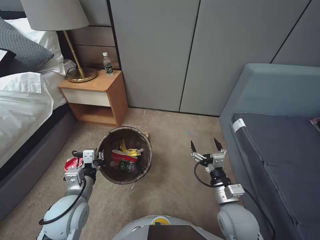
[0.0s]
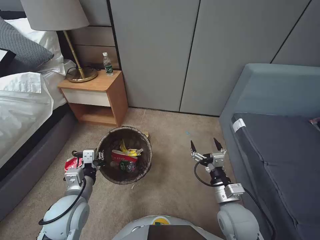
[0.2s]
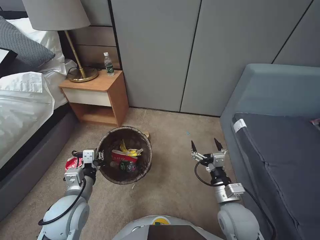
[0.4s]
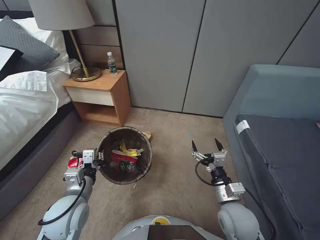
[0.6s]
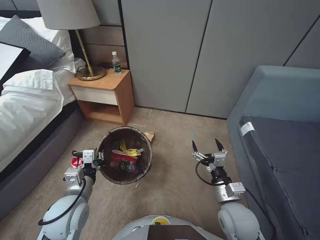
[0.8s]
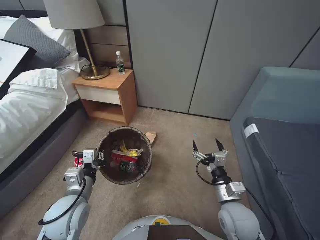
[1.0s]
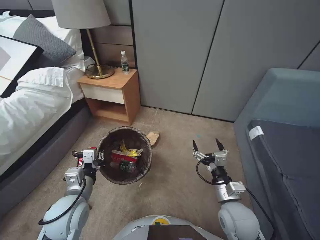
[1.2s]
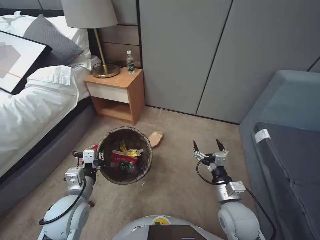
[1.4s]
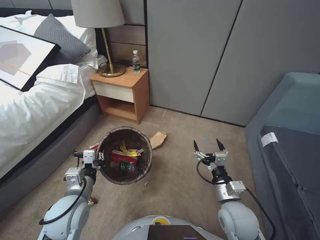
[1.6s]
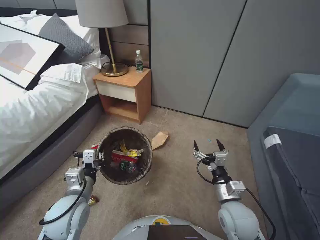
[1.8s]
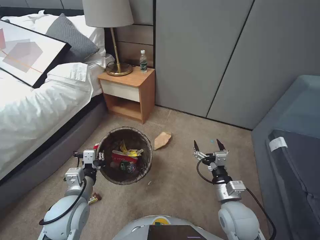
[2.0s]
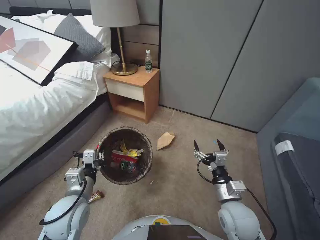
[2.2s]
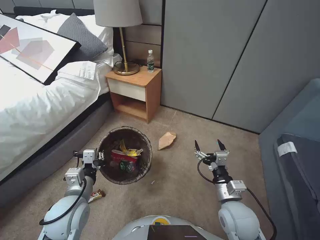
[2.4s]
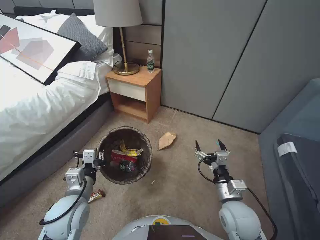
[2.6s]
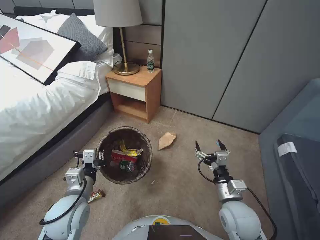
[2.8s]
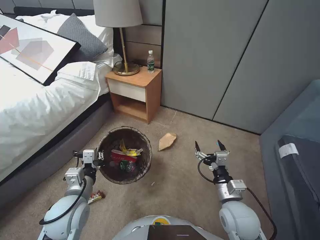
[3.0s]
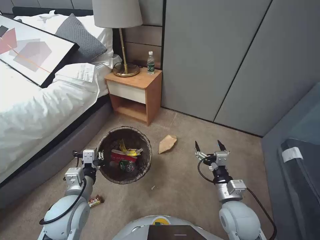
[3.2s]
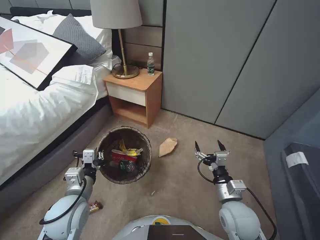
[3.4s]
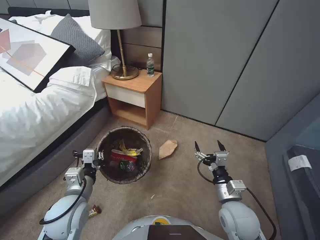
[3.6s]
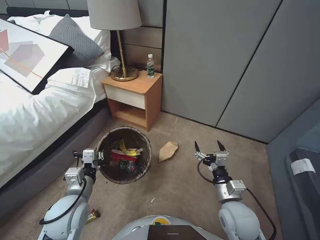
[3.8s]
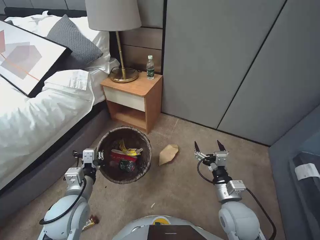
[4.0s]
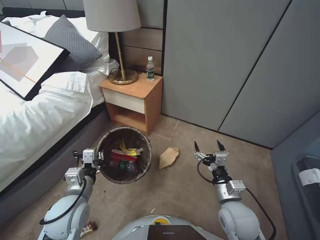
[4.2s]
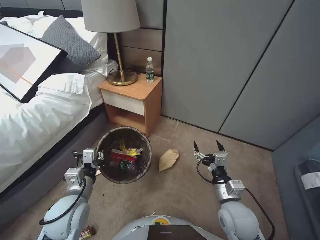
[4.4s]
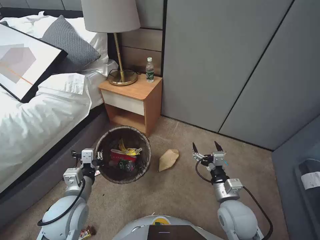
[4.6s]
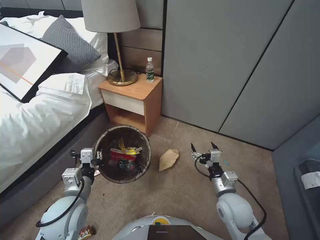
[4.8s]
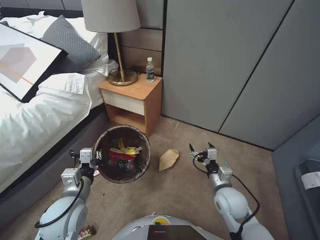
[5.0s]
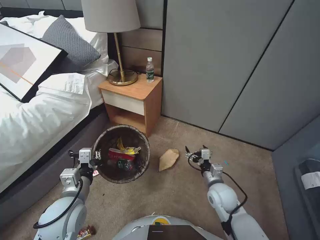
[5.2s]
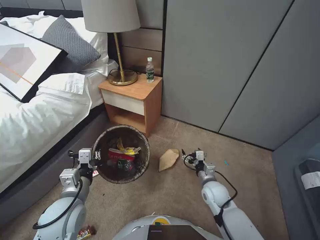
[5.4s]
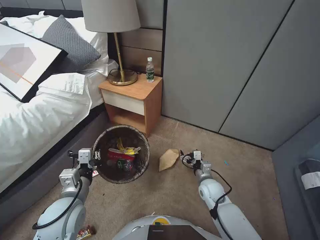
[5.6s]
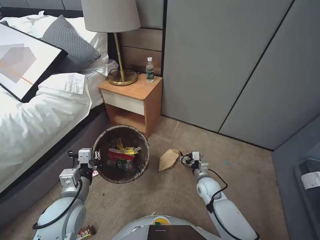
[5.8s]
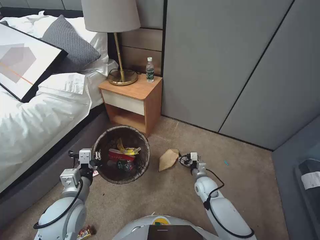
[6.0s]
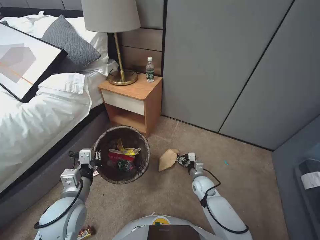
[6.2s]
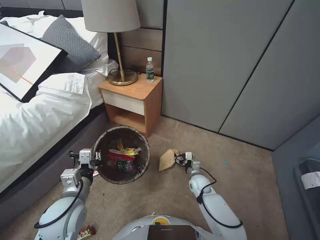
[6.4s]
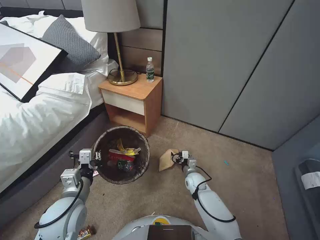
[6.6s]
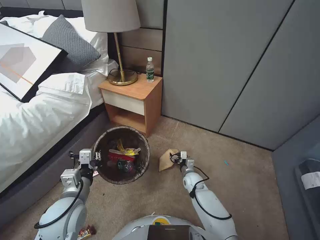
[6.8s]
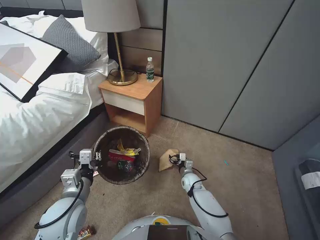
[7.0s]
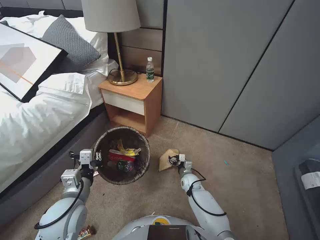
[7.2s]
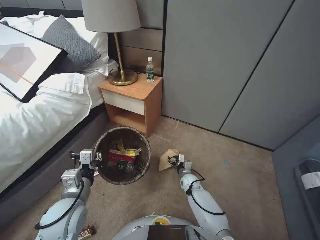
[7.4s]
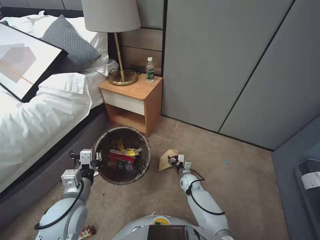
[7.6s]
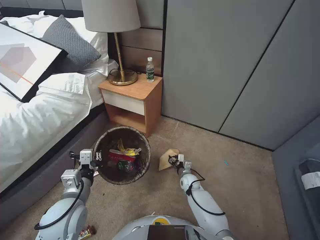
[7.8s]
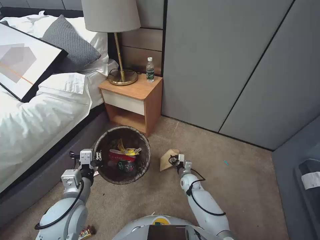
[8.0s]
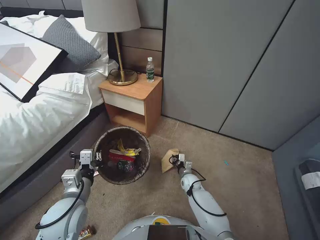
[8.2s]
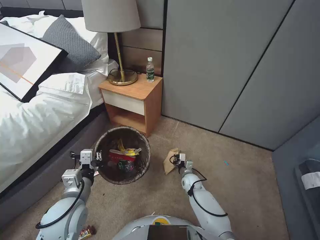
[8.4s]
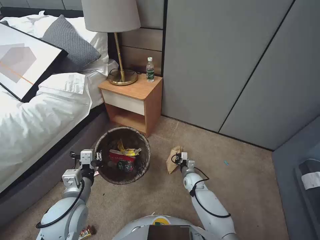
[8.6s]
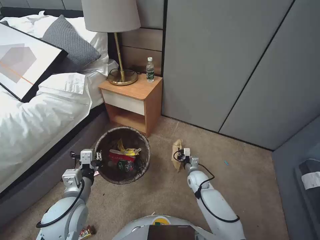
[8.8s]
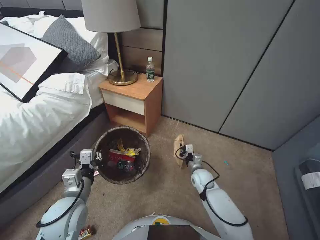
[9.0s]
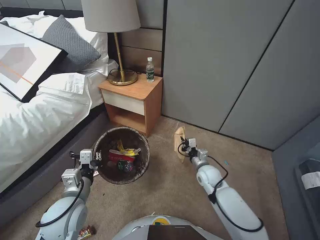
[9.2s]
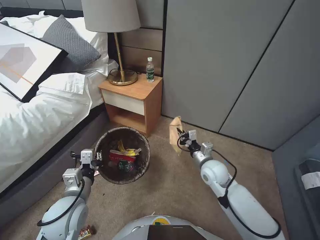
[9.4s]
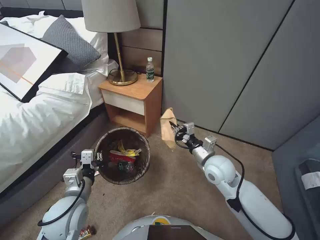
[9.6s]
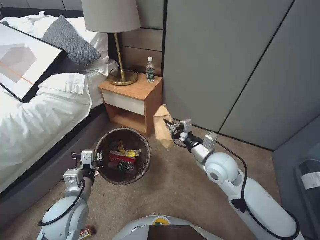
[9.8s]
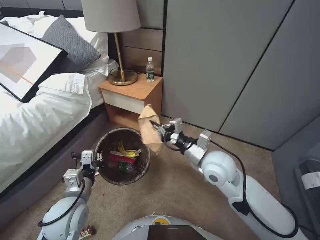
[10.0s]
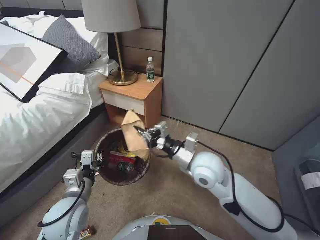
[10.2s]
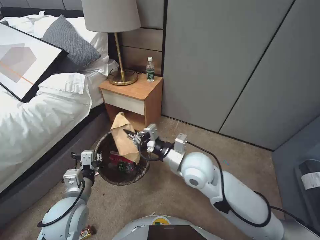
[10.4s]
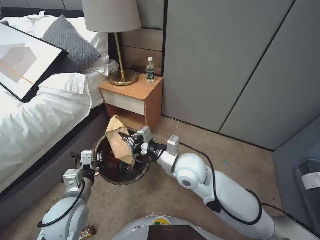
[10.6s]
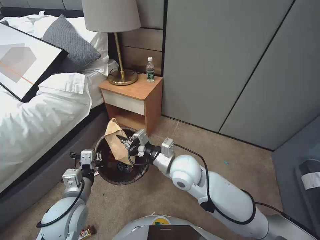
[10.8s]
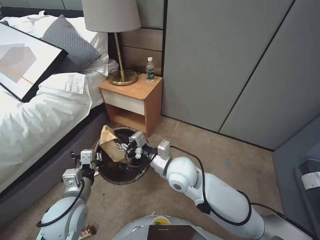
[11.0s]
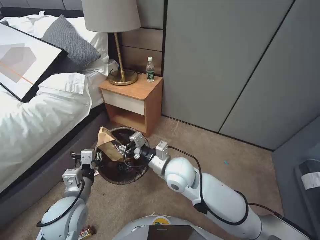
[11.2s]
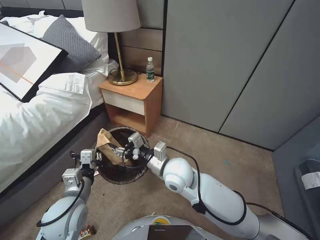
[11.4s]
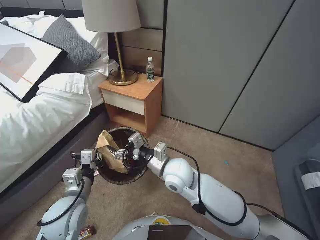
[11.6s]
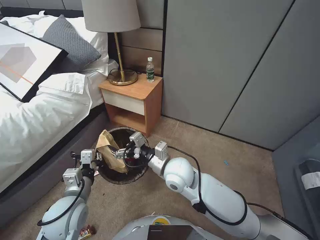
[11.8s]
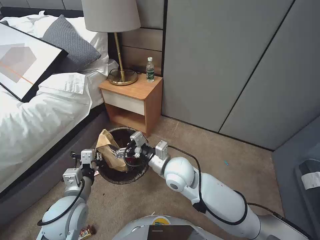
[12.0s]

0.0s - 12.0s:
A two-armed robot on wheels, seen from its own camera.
Task of the whole recording: Pick up the trash bin, then pick up the garbage from the floor and place it into the trash bin.
4.4s - 6.0s: The right gripper travels downward and forward by about 20 cm.
6.0s - 7.6s: The right gripper goes roughly 10 cm downward and to the left.
7.6s - 9.0s: The right gripper travels upward by about 10 cm, and closes up.
9.0s - 10.4s: The right gripper travels upward by about 30 cm.
10.4s - 12.0s: The right gripper moves to the left, about 5 cm, and opens its fingers.

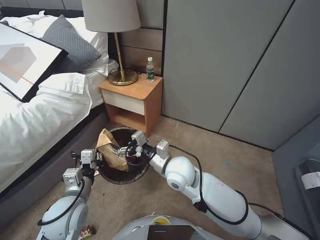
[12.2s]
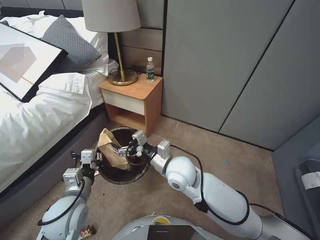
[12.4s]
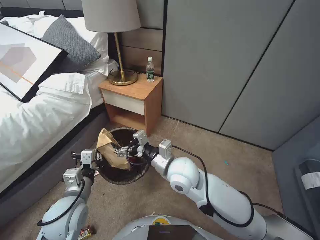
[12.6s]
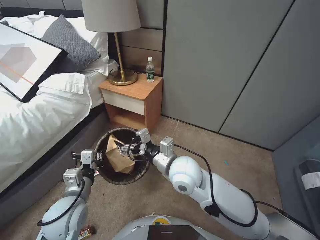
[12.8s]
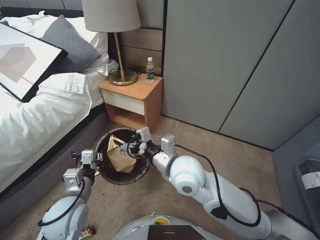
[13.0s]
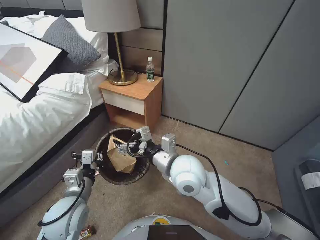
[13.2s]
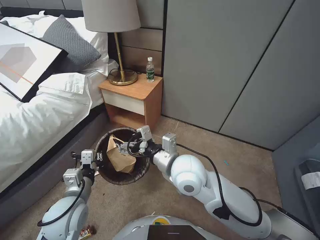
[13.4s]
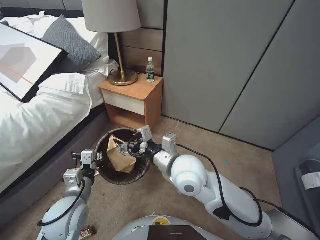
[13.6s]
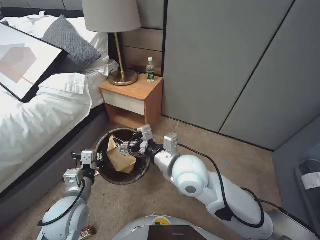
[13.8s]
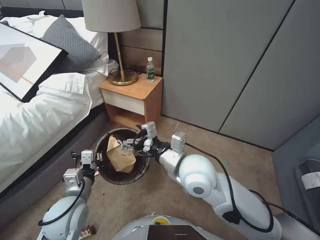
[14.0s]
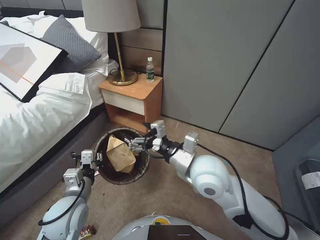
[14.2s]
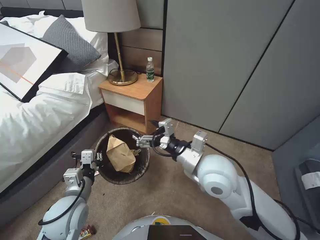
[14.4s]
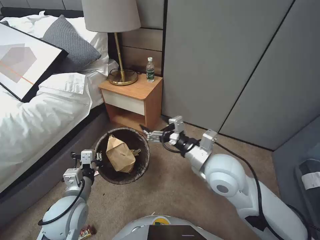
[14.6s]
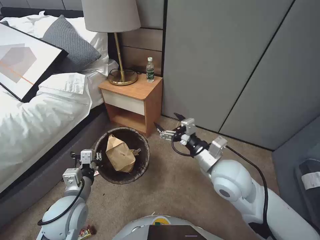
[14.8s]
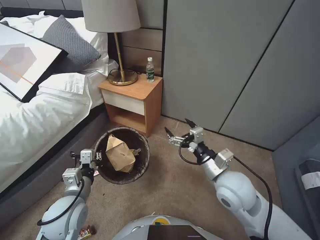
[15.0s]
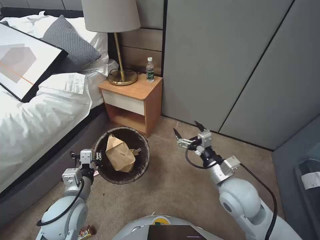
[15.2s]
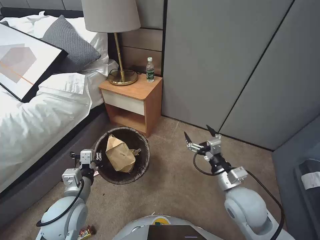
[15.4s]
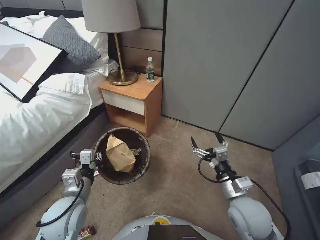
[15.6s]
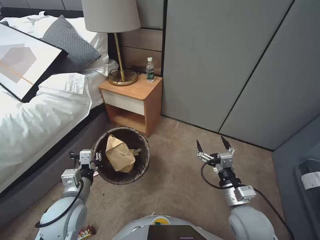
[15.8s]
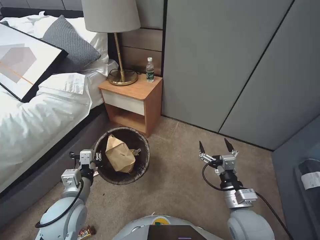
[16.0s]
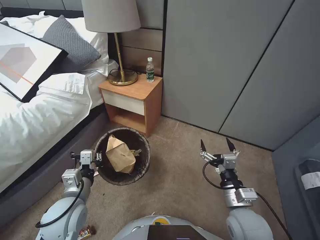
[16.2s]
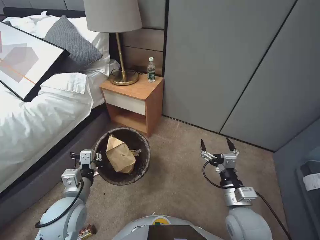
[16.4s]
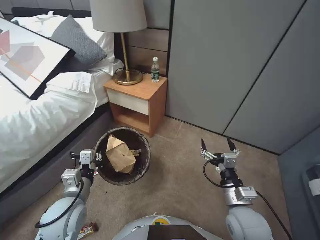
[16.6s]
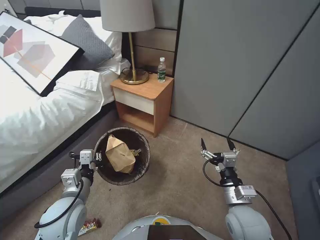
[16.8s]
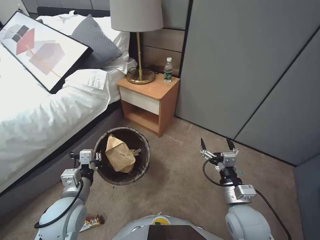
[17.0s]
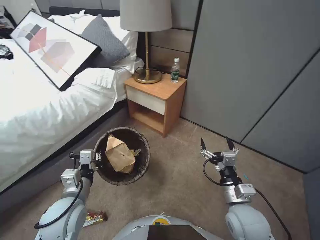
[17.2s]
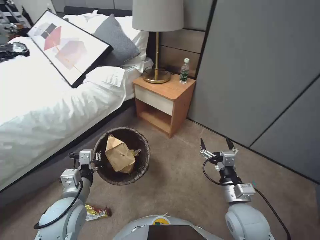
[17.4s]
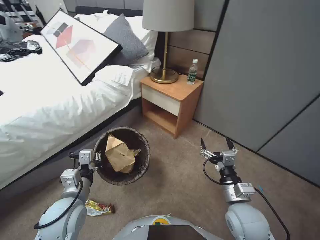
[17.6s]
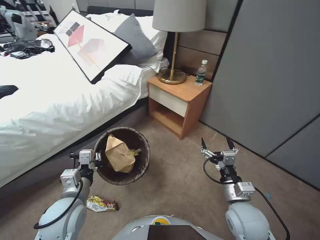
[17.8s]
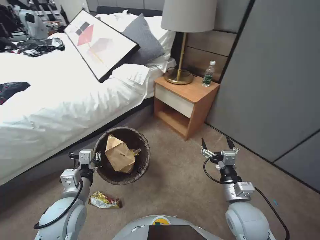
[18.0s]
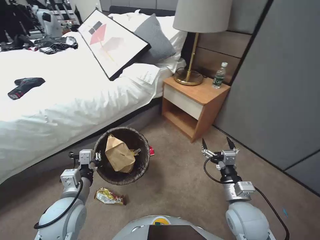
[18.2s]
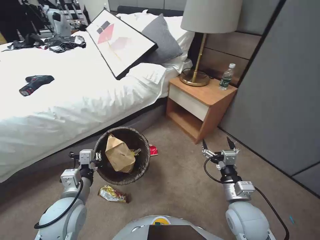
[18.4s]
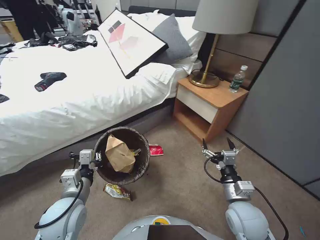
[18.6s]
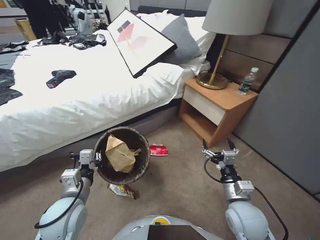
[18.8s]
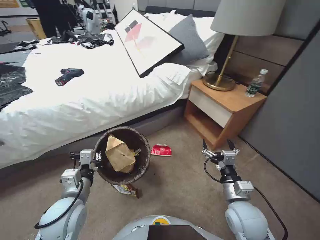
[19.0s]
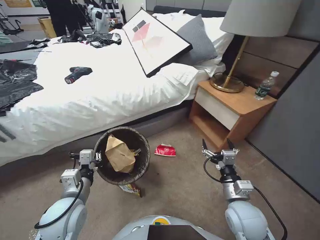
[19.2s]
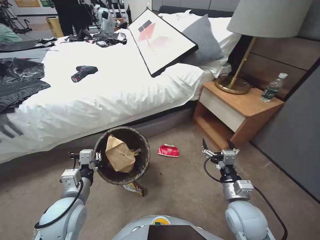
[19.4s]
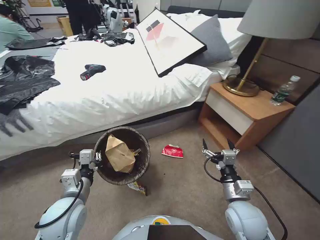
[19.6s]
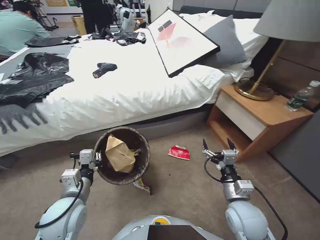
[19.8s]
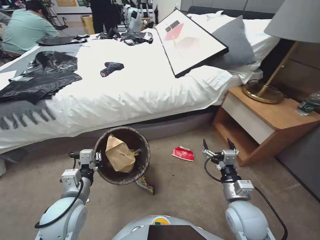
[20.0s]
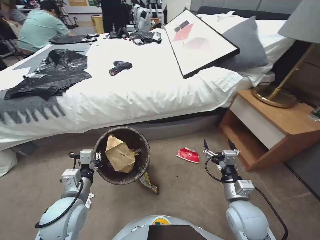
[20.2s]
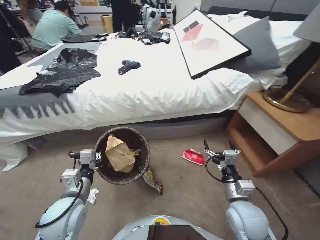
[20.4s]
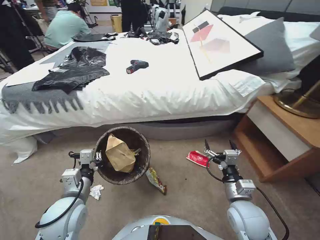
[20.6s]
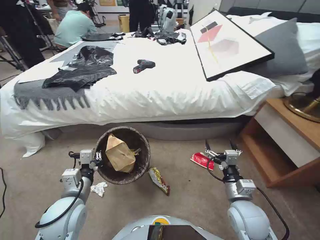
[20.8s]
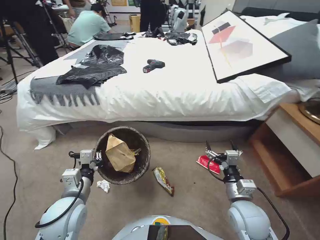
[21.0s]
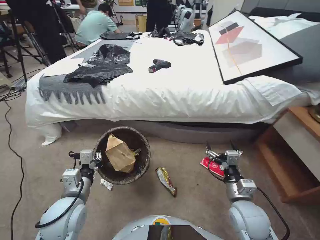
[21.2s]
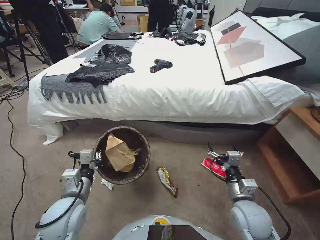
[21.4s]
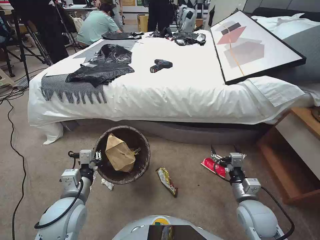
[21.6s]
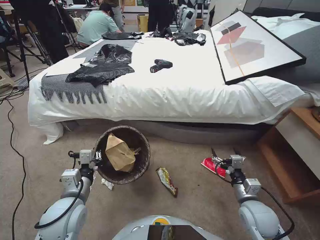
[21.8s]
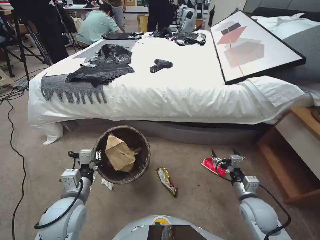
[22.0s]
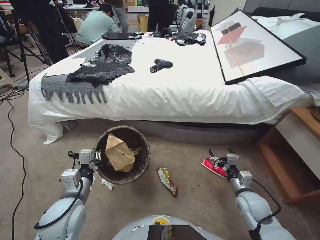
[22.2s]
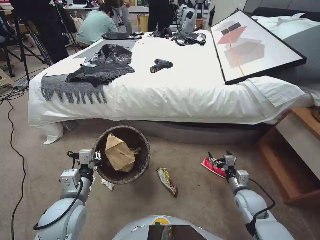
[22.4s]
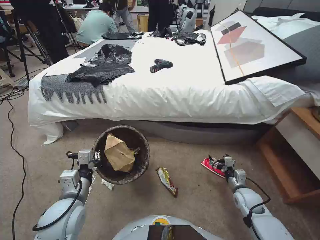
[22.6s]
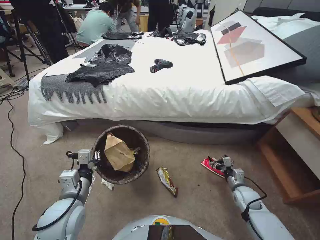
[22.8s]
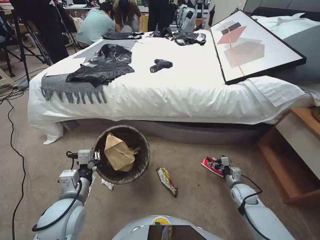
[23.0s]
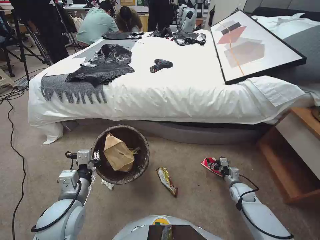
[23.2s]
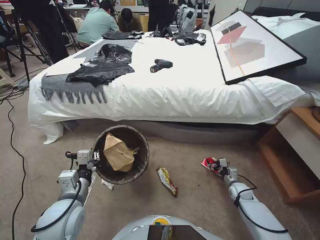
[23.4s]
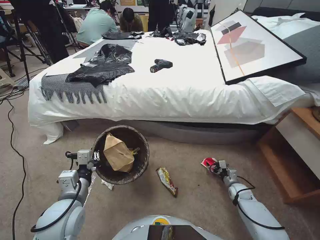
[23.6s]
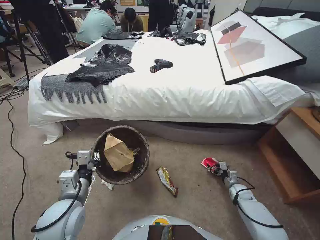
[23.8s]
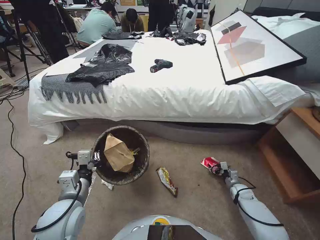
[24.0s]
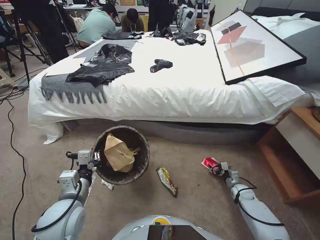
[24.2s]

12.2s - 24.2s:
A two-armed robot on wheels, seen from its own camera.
Task of the whole recording: Pick up the trash bin, then pick up the garbage from the floor and place it into the trash bin.
12.2s - 13.8s: The right gripper moves upward, about 5 cm.
13.8s - 15.2s: The right gripper is displaced to the right by roughly 15 cm.
15.2s - 16.6s: The right gripper shifts about 10 cm backward and downward.
21.2s - 22.6s: The right gripper heads downward, to the right and forward, covering roughly 15 cm.
22.6s - 24.2s: The right gripper heads downward, to the right and forward, covering some 15 cm.
